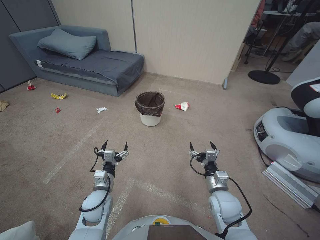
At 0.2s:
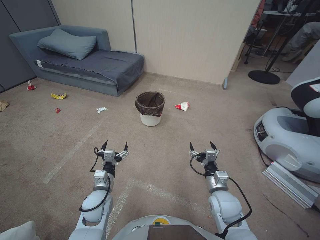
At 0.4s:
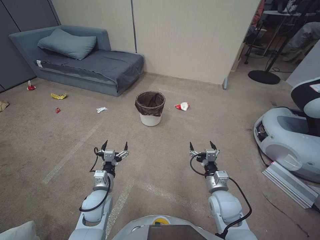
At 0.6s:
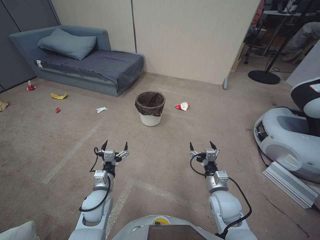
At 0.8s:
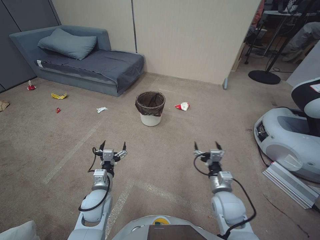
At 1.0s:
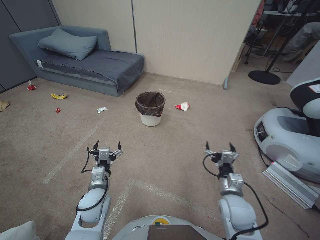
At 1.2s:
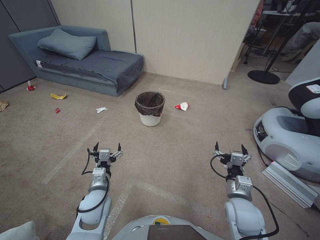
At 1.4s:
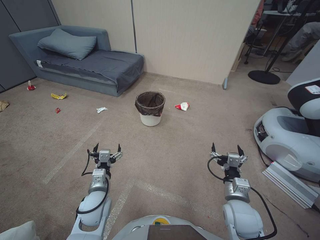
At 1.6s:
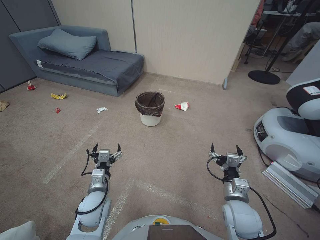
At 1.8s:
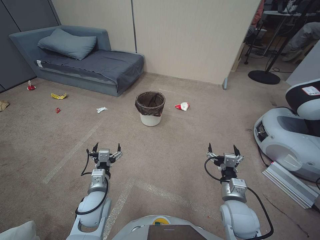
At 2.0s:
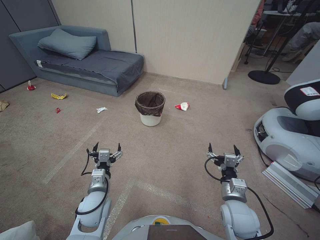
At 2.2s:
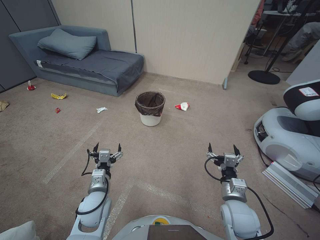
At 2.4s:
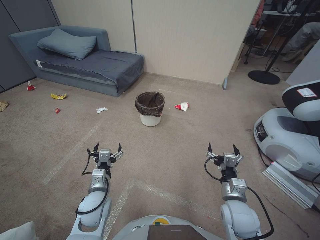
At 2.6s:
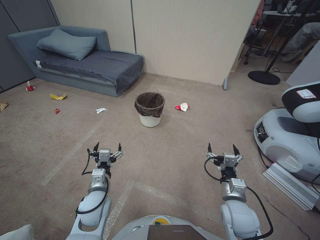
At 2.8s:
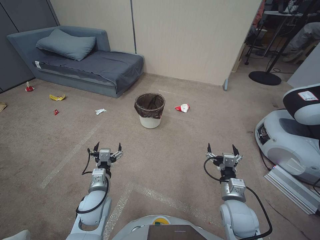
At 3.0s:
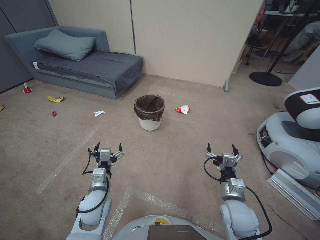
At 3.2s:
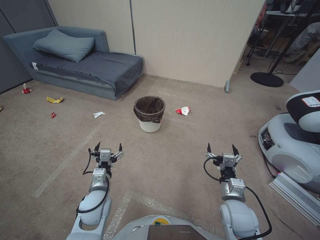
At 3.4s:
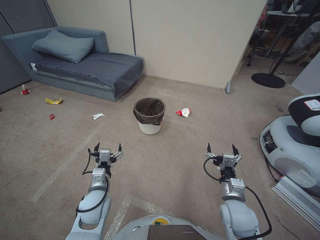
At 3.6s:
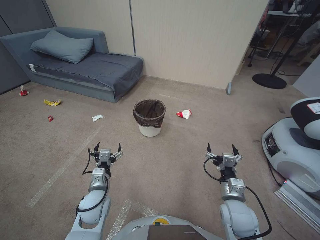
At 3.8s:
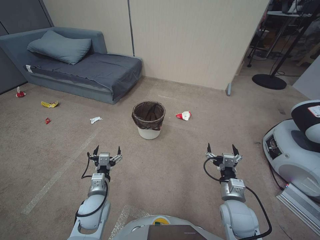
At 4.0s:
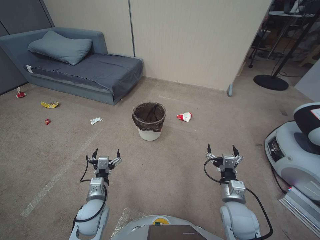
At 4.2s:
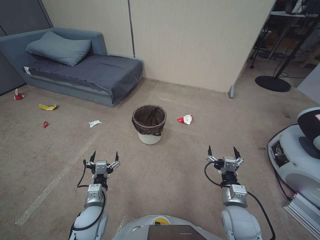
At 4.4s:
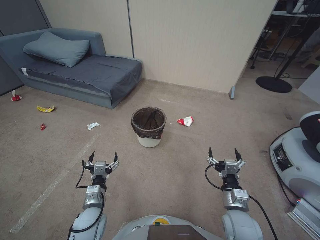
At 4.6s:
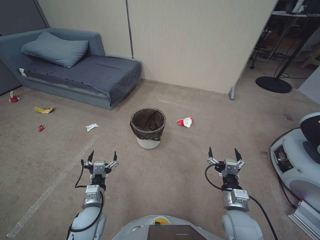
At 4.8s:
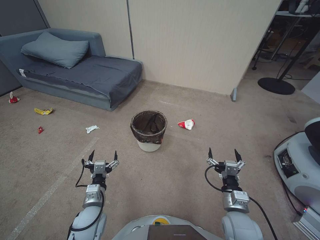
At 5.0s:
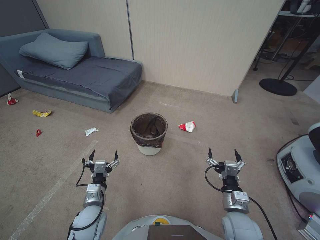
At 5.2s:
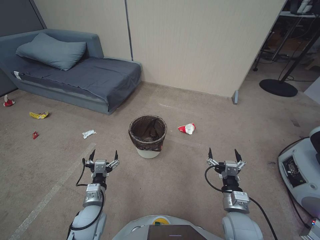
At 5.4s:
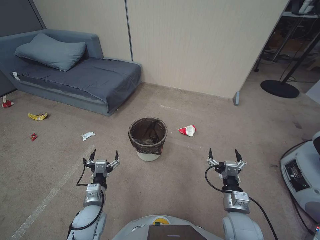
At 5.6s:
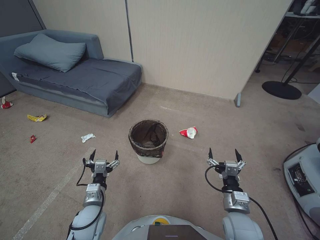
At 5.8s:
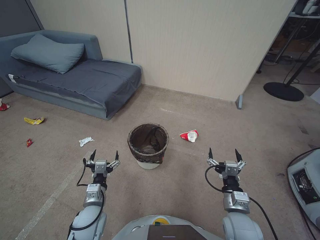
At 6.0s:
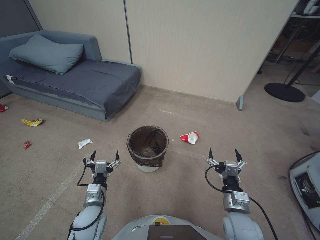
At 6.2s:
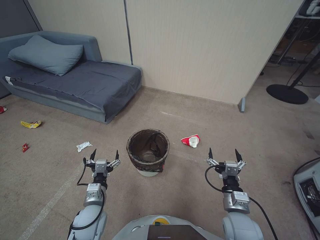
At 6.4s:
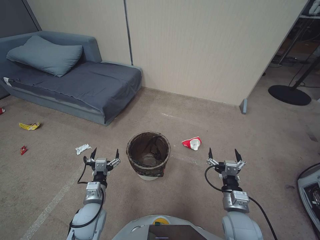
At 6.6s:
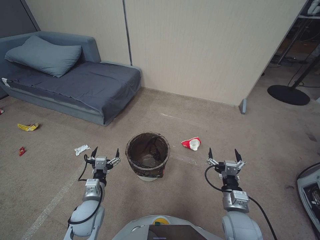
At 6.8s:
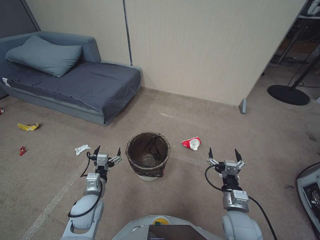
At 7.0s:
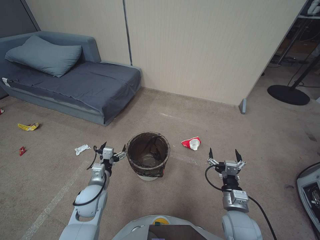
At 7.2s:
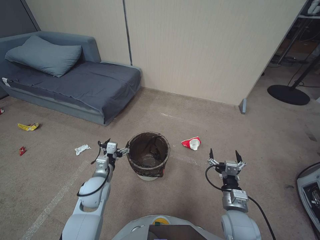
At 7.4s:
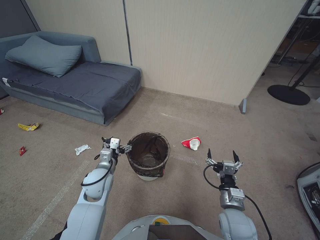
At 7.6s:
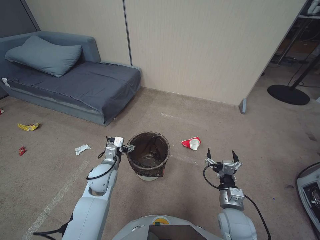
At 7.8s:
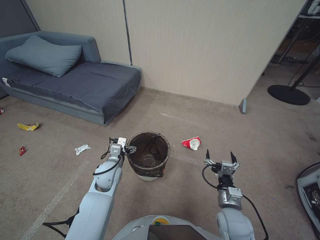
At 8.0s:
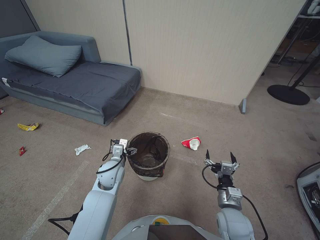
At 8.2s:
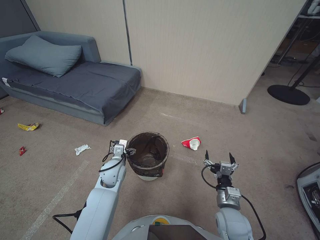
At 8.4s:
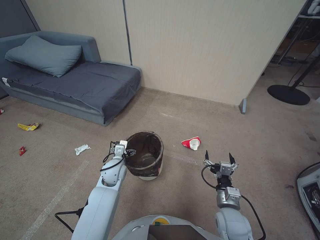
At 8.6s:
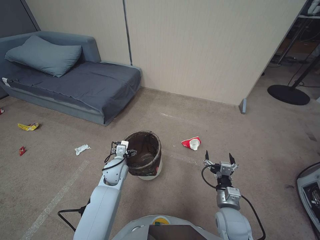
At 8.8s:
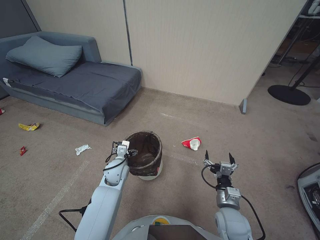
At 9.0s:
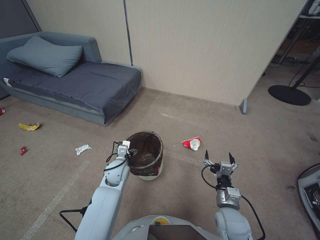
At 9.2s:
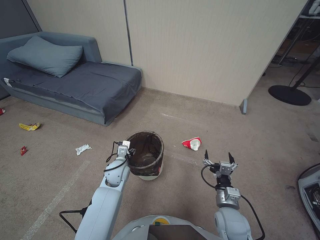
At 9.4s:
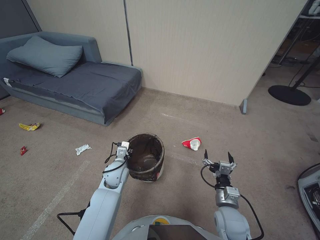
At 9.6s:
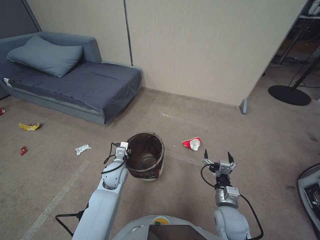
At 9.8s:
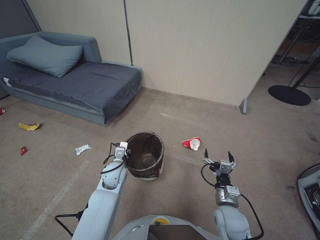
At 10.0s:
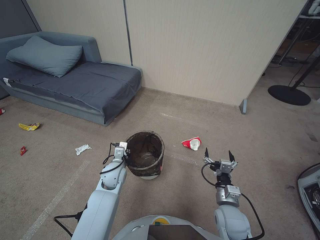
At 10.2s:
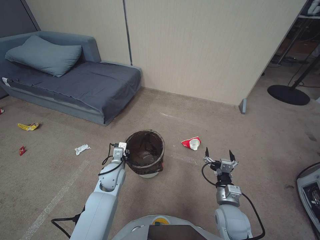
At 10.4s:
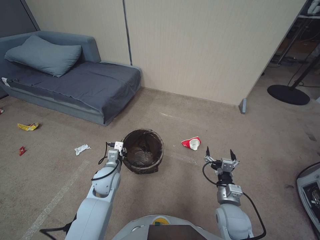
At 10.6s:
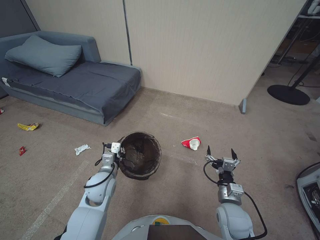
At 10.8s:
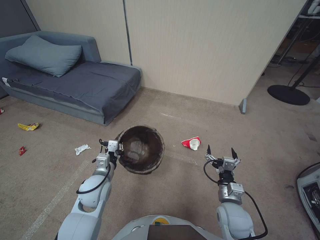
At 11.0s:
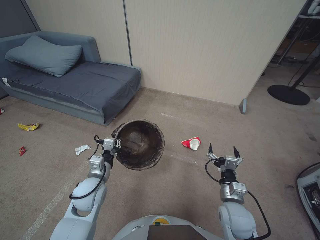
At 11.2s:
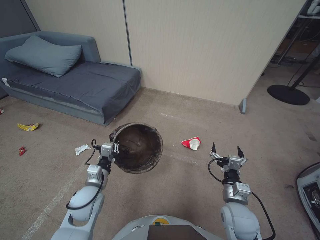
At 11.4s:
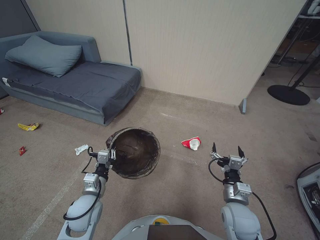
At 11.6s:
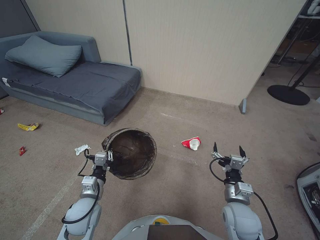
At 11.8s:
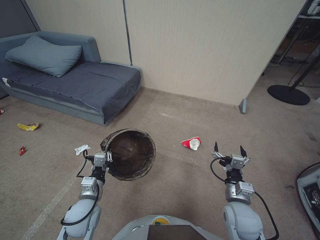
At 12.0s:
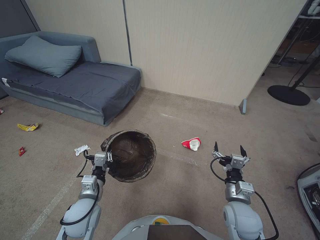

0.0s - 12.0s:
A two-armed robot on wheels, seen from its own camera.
Task of the whole recording: Pick up the trash bin, then pick up the garbage from the floor and place it into the trash bin.
1.6s - 3.0s: Neither gripper changes place.
3.0s - 4.4s: The left gripper changes place by about 5 cm.
6.0s - 7.6s: The left gripper is displaced forward by some 10 cm.
7.6s - 9.0s: The left gripper heads downward, covering approximately 5 cm.
9.0s - 10.4s: The left gripper closes up.
10.4s - 12.0s: The left gripper shifts roughly 10 cm backward.

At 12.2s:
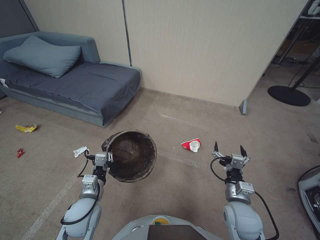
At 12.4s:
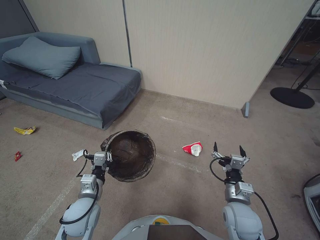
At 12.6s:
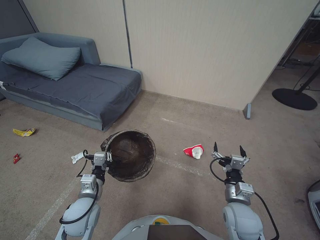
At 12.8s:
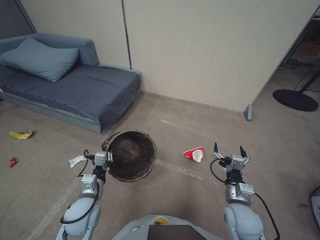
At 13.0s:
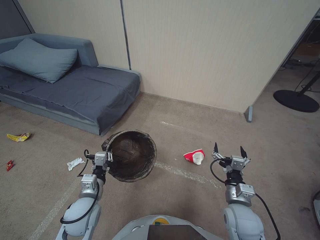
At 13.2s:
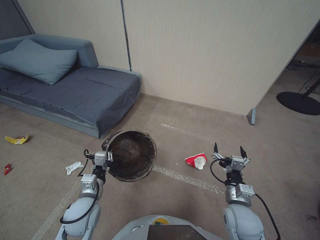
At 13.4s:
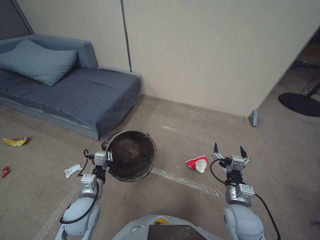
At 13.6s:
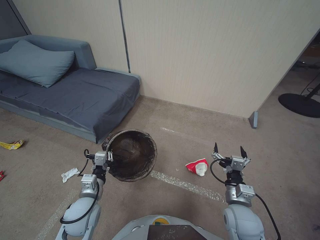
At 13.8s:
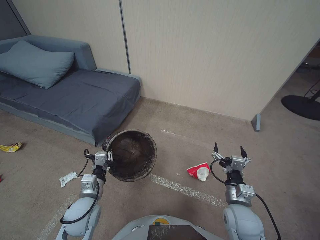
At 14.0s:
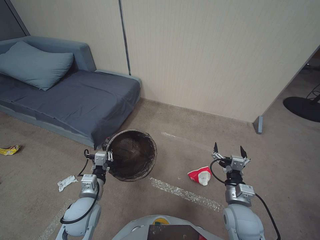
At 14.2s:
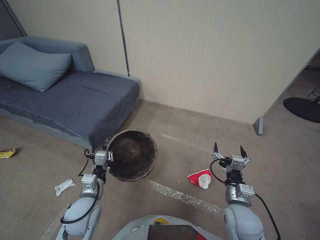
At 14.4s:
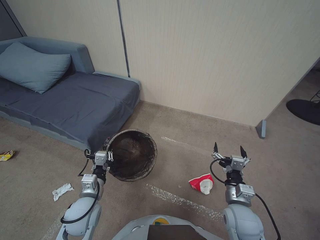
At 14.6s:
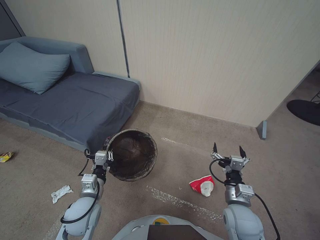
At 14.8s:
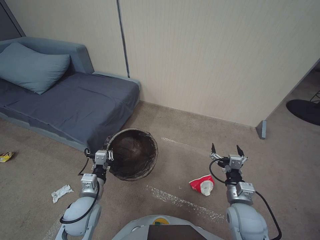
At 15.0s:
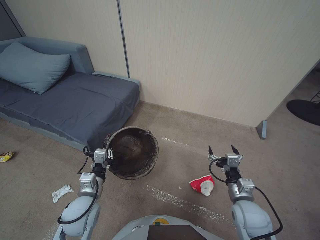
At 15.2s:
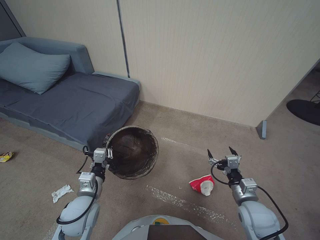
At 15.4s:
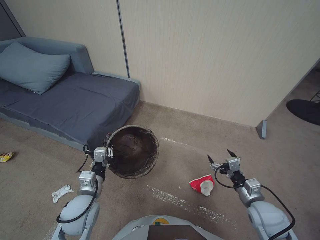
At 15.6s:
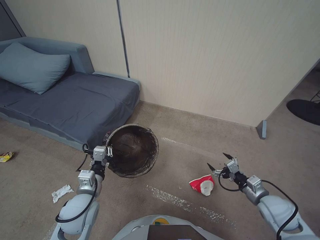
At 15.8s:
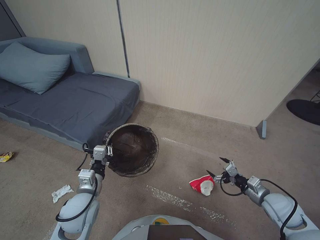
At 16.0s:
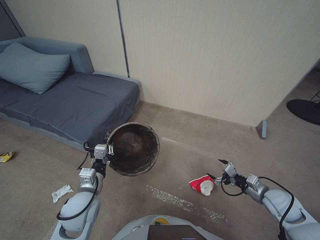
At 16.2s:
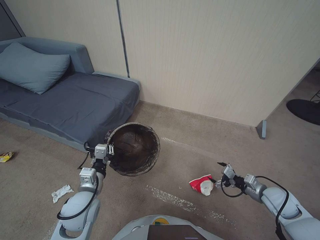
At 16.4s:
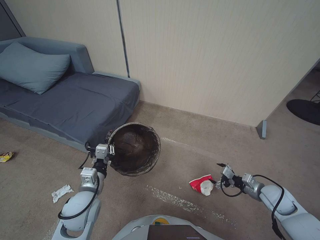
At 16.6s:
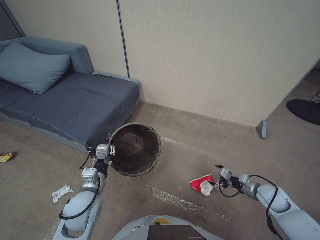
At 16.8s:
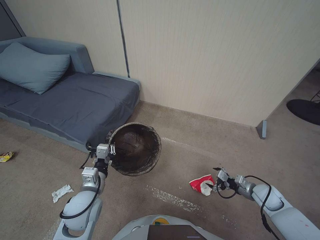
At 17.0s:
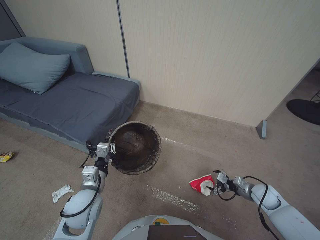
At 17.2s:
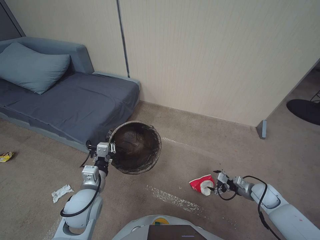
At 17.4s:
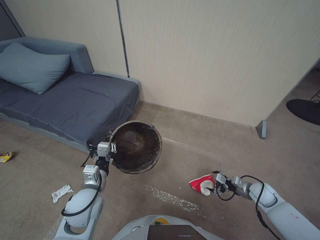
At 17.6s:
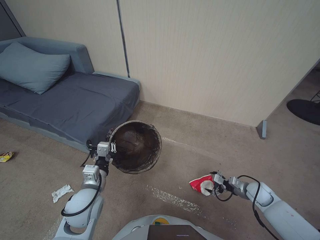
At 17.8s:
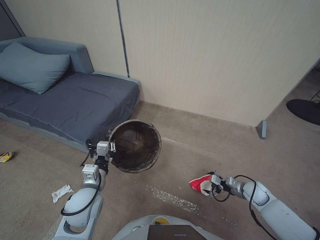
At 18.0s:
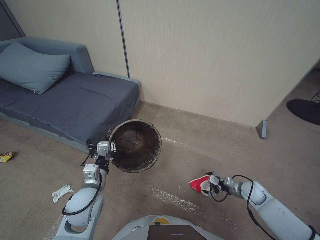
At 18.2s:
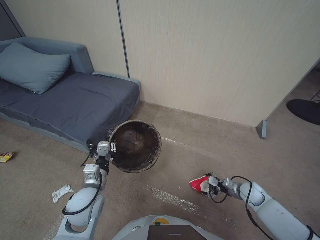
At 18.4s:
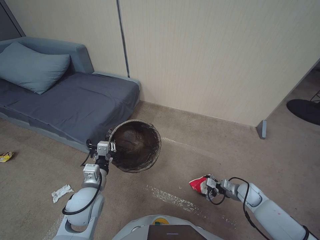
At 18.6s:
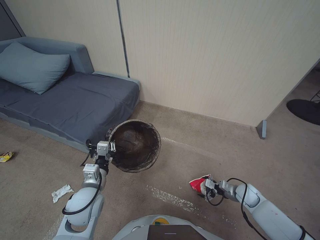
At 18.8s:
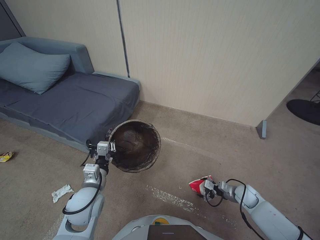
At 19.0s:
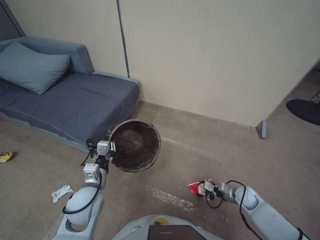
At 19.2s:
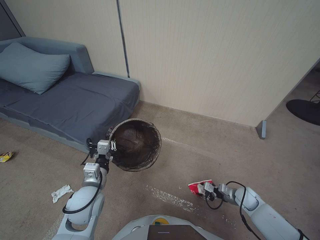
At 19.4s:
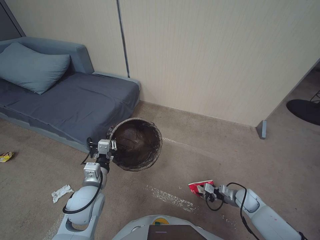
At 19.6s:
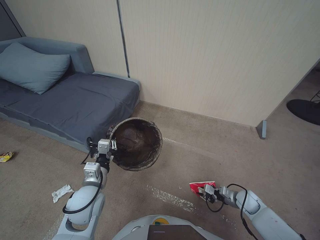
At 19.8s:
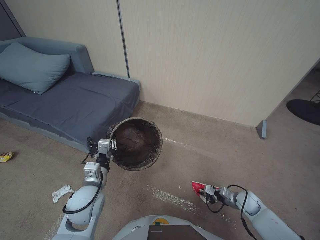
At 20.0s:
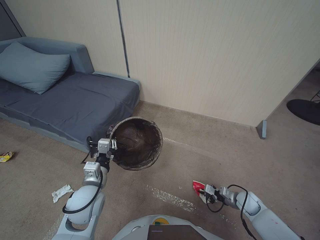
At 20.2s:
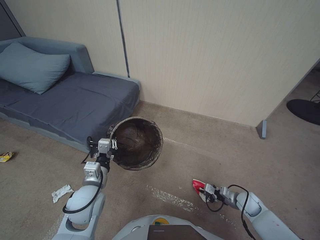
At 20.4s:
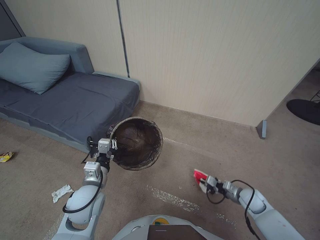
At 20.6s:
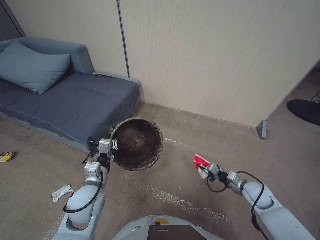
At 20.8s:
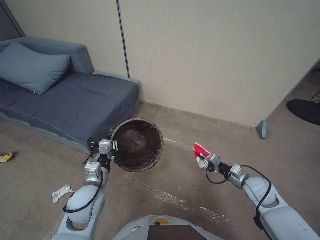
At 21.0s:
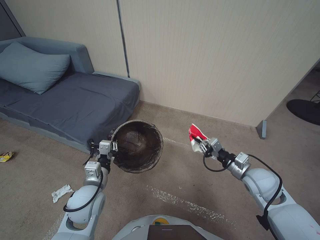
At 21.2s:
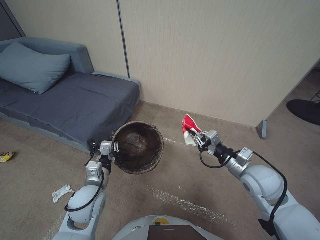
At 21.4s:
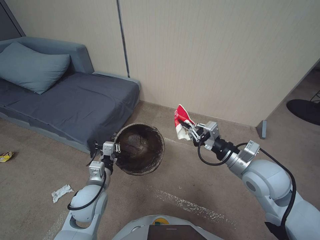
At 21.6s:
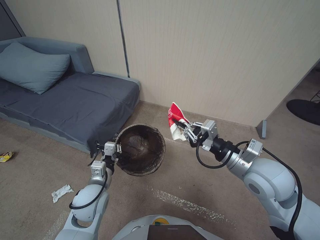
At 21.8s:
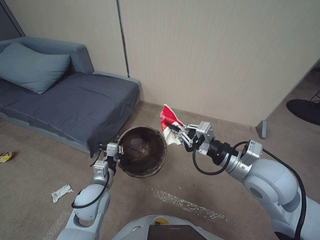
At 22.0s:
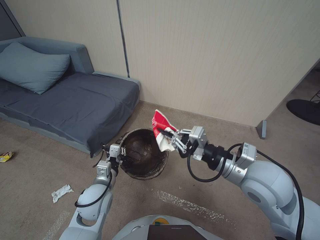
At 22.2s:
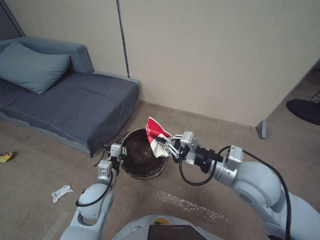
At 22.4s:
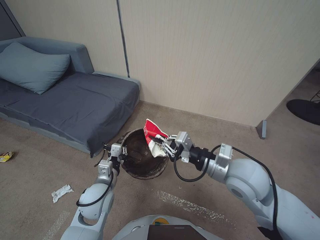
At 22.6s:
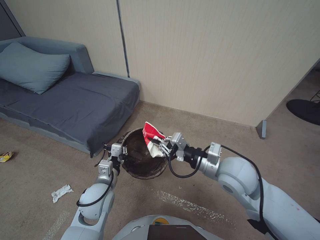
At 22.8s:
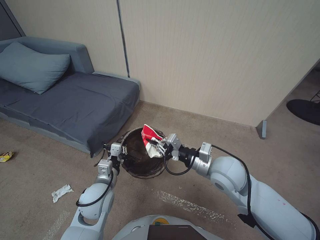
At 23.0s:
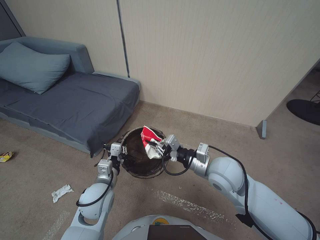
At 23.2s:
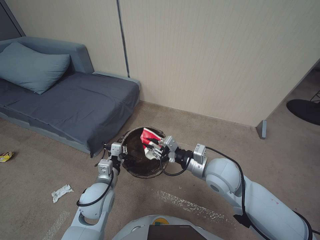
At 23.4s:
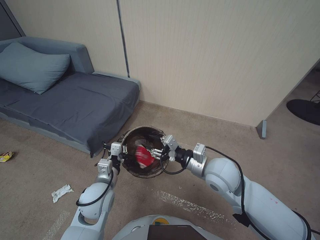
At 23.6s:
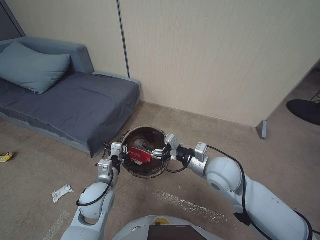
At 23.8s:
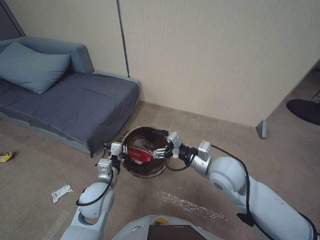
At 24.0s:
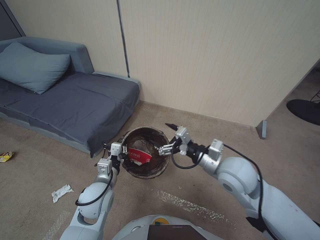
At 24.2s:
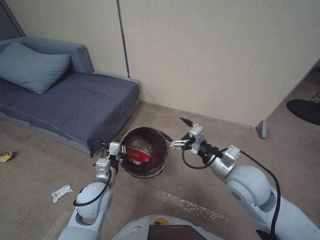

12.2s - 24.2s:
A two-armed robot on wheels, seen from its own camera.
Task of the whole recording: Pick up the trash bin, then pick up the garbage from the floor and place it into the trash bin.
12.2s - 13.8s: Both grippers stay about where they are.
13.8s - 15.2s: The grippers make only small movements.
15.2s - 16.6s: The right gripper goes approximately 15 cm to the right and forward.
16.6s - 18.2s: The right gripper is displaced downward by approximately 10 cm.
18.2s - 19.8s: The right gripper shifts by roughly 5 cm, and closes up.
19.8s - 21.2s: The right gripper shifts approximately 30 cm upward and to the left.
21.2s - 22.6s: The right gripper is displaced to the left and upward by approximately 10 cm.
22.6s - 24.2s: The right gripper opens.
